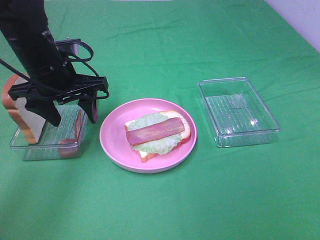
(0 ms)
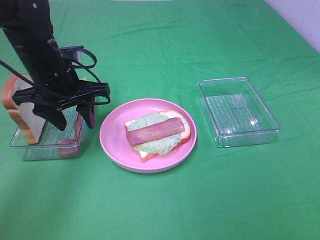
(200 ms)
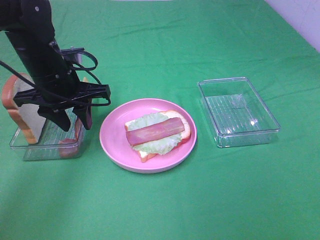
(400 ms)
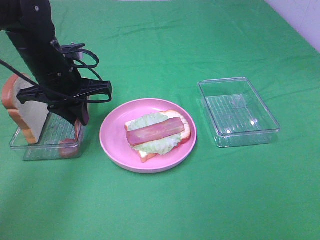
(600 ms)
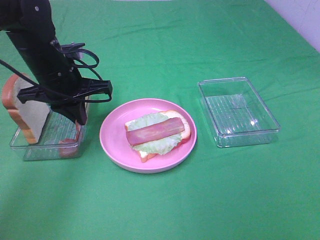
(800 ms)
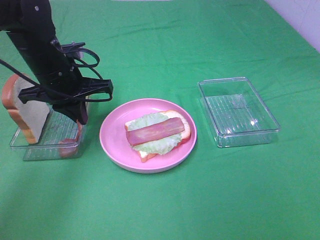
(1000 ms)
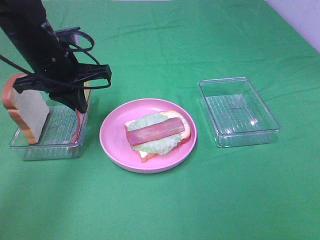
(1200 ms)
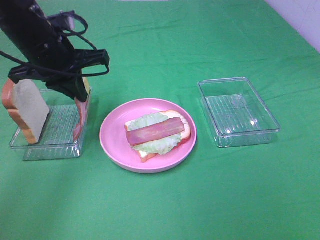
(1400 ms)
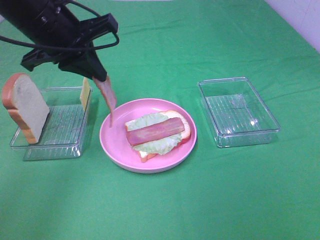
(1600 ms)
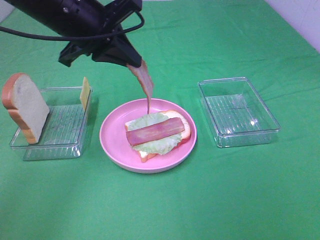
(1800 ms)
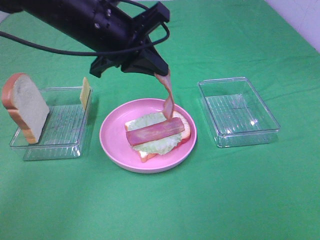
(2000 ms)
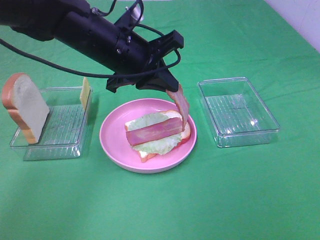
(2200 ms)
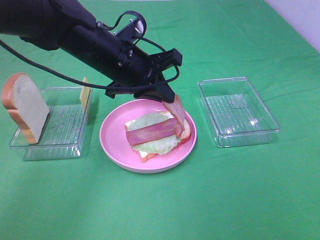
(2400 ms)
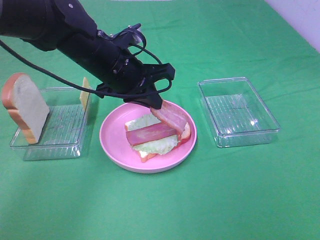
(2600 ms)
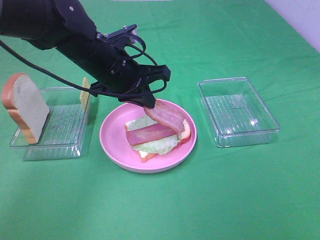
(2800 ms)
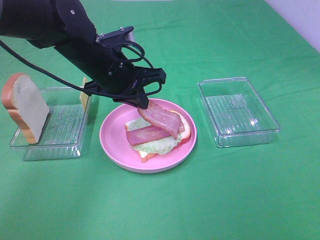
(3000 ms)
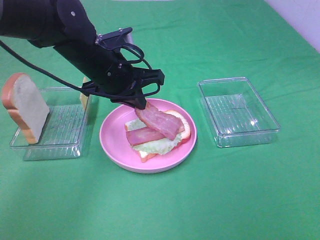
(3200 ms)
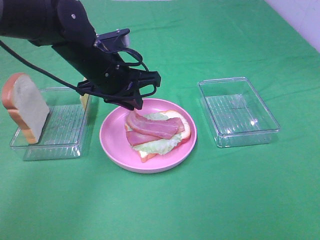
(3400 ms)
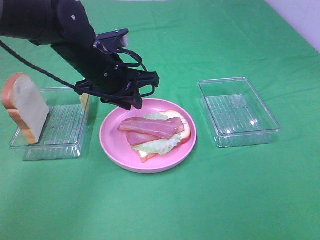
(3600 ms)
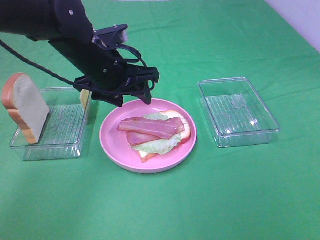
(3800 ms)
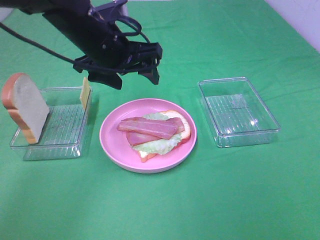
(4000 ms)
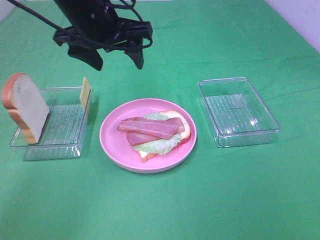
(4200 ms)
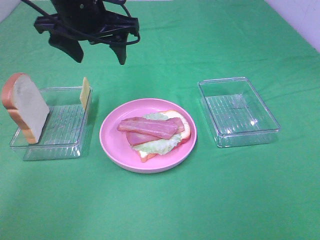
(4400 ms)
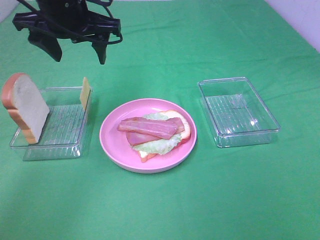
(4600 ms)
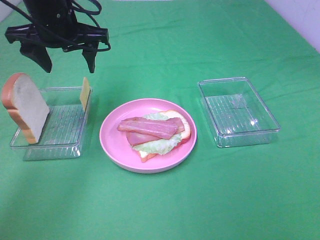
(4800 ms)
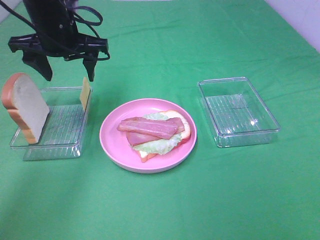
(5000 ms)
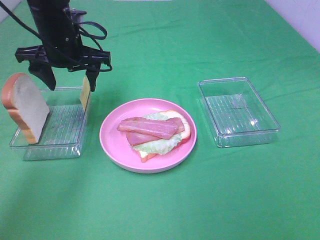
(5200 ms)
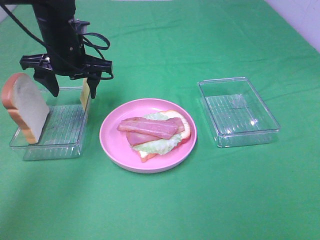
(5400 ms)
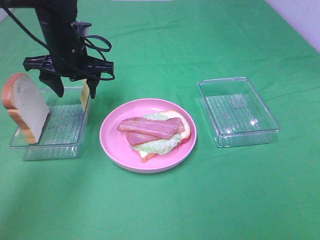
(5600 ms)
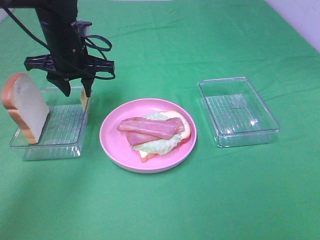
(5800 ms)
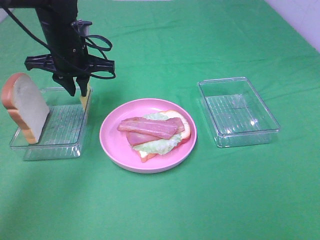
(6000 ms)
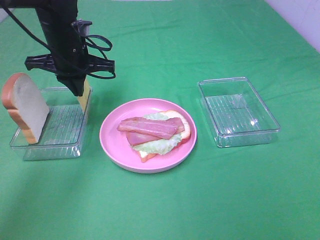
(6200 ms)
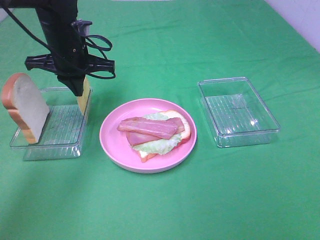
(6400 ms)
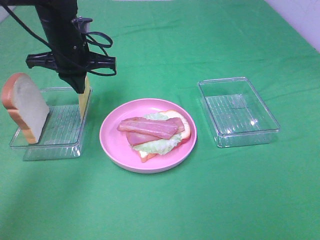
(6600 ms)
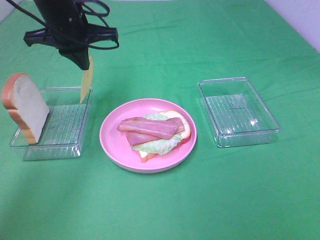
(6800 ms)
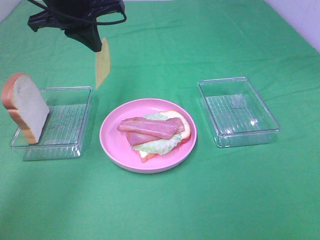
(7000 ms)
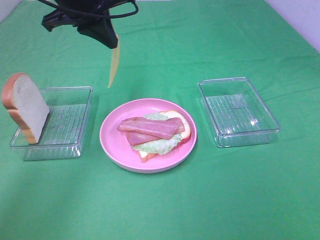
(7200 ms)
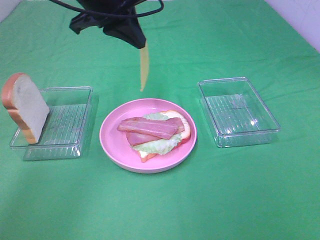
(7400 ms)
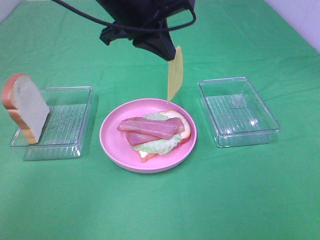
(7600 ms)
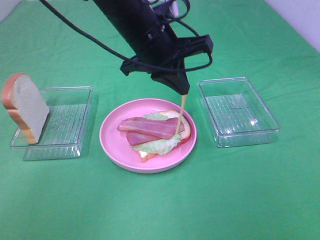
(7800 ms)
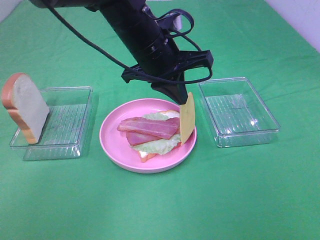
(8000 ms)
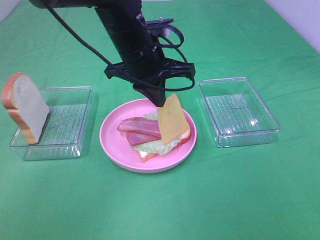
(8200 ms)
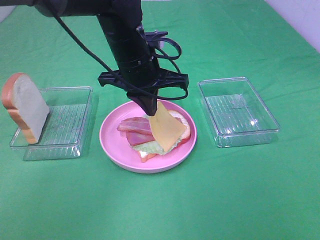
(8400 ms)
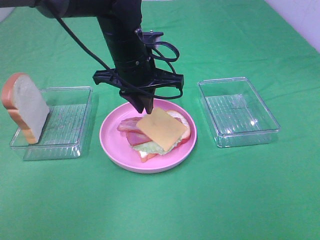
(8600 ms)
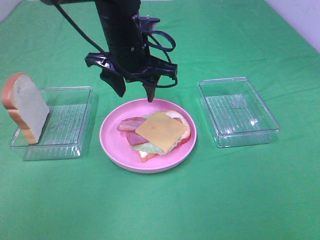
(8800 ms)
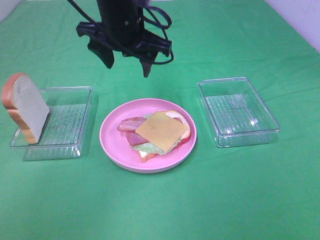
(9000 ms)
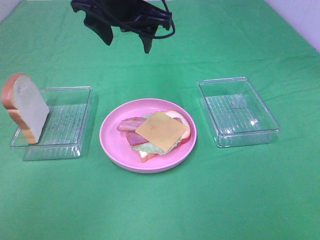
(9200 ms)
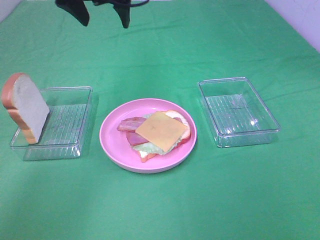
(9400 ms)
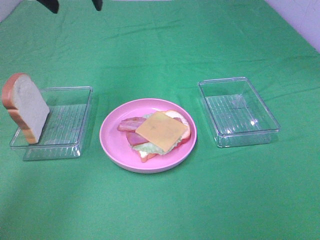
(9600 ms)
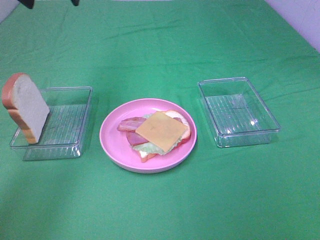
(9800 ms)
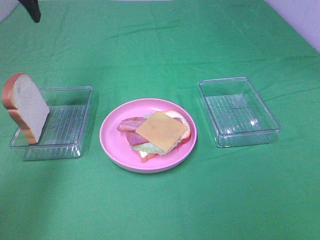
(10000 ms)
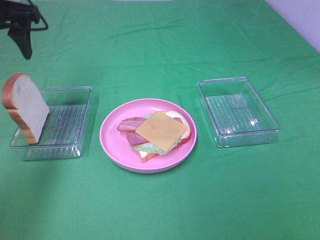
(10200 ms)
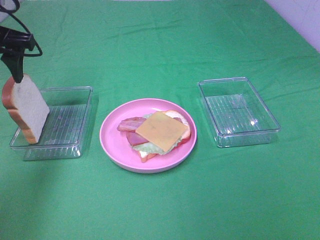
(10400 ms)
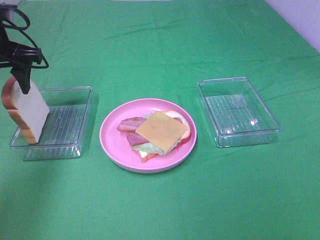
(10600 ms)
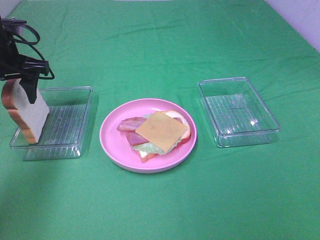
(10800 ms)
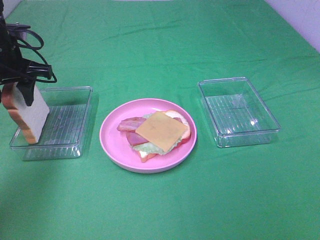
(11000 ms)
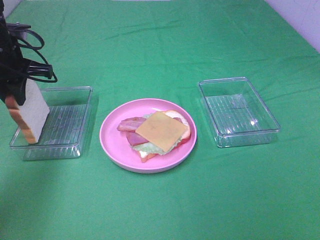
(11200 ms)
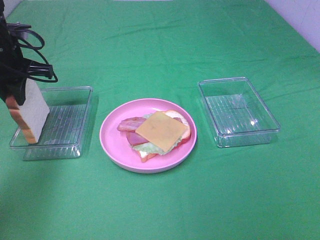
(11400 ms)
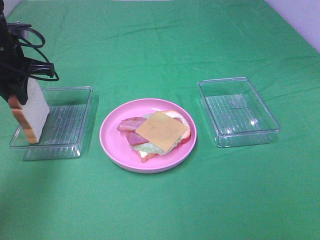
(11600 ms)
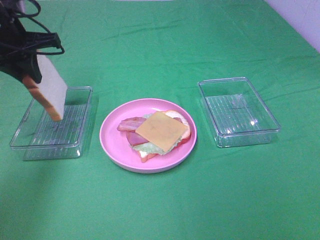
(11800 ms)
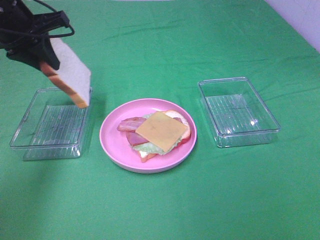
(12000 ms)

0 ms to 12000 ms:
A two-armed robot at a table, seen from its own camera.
Task of the whole recording: Make sandwiches.
Step, 1000 ms to 3400 ms: Left hand:place bacon on bacon.
Step, 3600 ms to 6400 ms: Left hand:grab the cheese slice.
Step, 6600 ms to 8800 ms: Left hand:place the cheese slice on top of the bacon.
Step, 9000 ms to 11400 ms: Left hand:grab the bread slice.
0 ms to 1600 ms: The left gripper heads upward, covering about 10 cm, and closes.
1600 ms to 3000 ms: The left gripper heads downward and to the right, covering approximately 10 cm.
3000 ms to 4400 ms: The left gripper shifts approximately 10 cm upward, and opens.
4400 ms to 6000 ms: The left gripper travels downward and forward by about 10 cm, and closes.
6000 ms to 7600 ms: The left gripper moves to the right, upward and backward, roughly 15 cm.
7600 ms to 9000 ms: The left gripper reaches roughly 10 cm downward, then returns, and opens up.
9000 ms to 10400 ms: The left gripper shifts roughly 20 cm to the left.
10400 ms to 12000 ms: The left gripper closes.

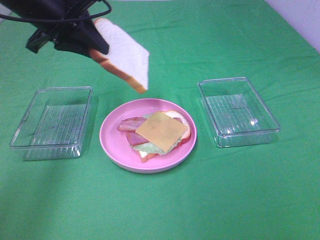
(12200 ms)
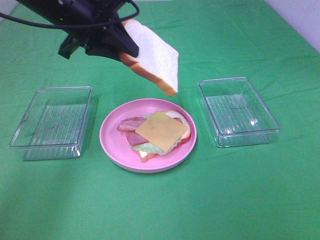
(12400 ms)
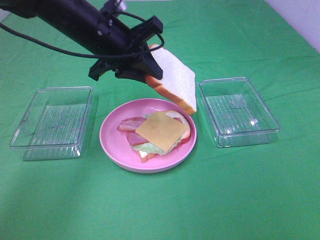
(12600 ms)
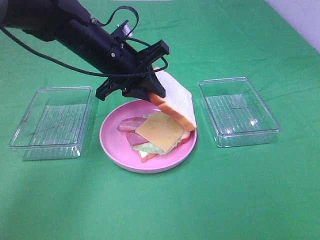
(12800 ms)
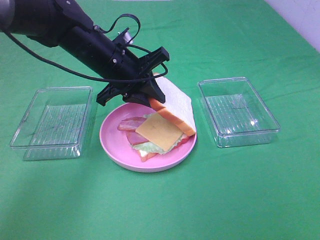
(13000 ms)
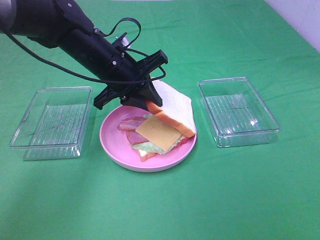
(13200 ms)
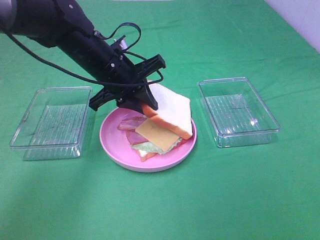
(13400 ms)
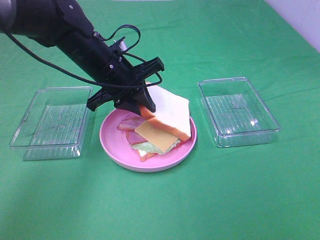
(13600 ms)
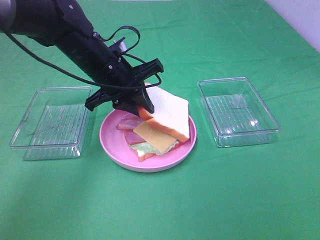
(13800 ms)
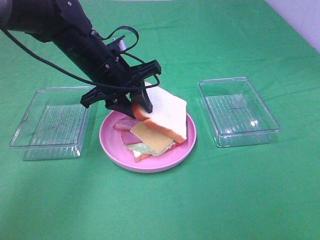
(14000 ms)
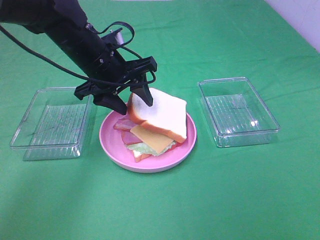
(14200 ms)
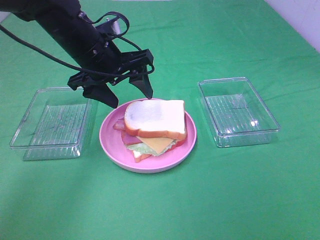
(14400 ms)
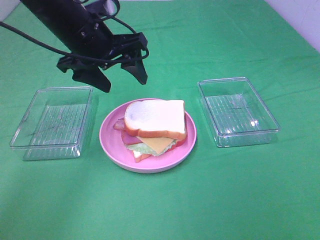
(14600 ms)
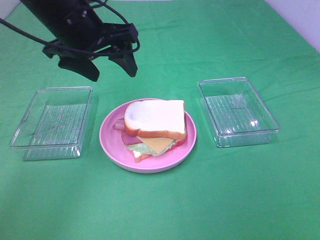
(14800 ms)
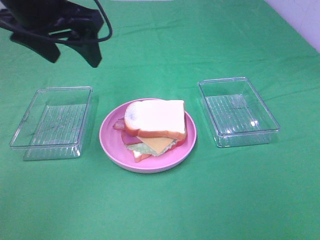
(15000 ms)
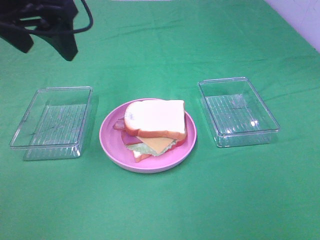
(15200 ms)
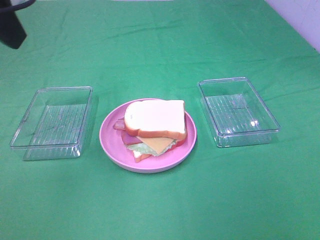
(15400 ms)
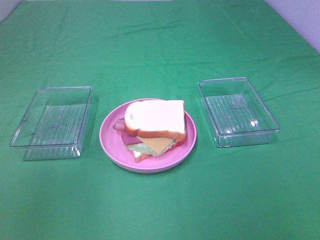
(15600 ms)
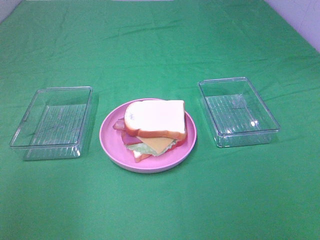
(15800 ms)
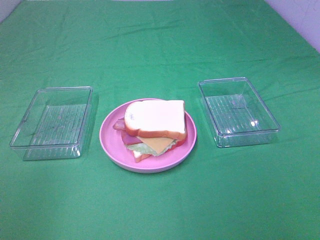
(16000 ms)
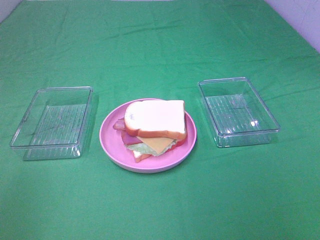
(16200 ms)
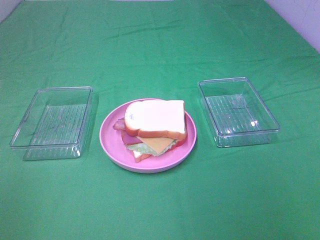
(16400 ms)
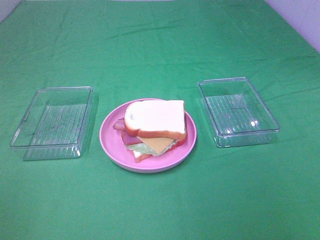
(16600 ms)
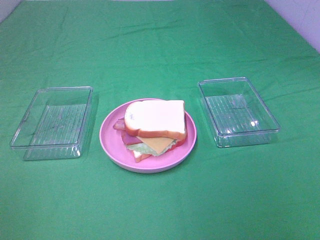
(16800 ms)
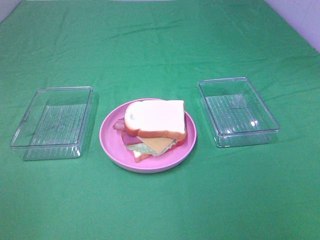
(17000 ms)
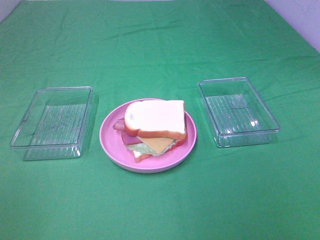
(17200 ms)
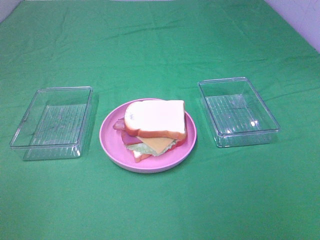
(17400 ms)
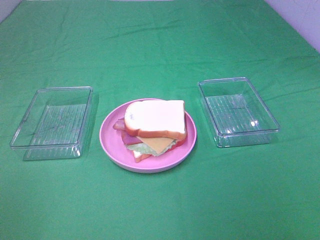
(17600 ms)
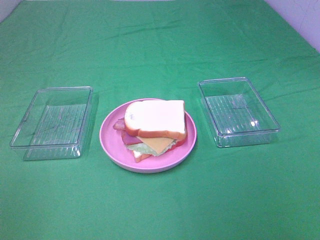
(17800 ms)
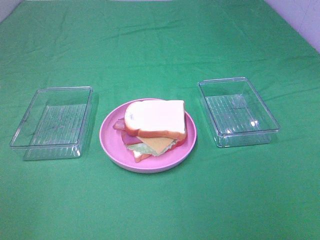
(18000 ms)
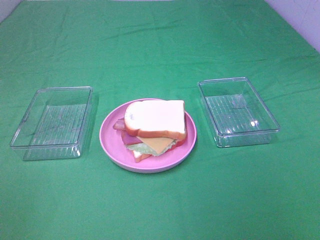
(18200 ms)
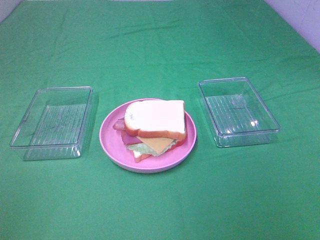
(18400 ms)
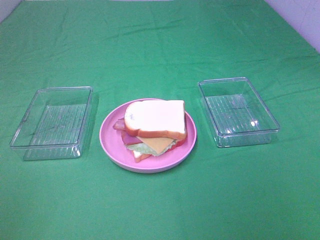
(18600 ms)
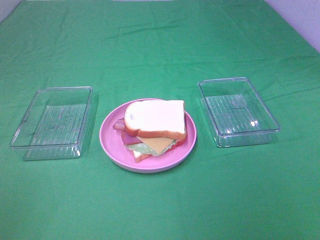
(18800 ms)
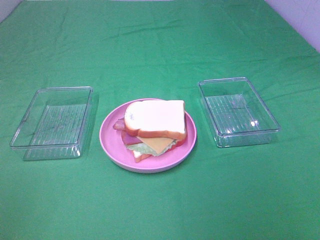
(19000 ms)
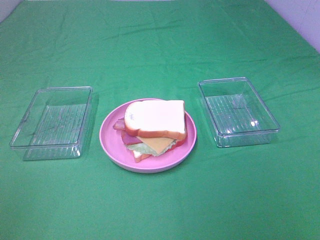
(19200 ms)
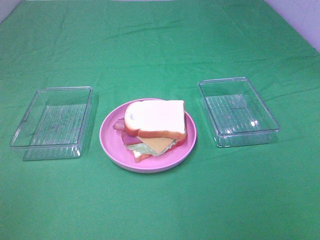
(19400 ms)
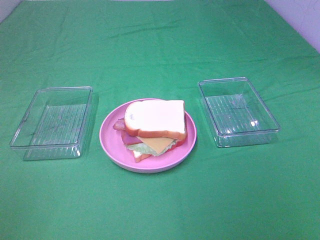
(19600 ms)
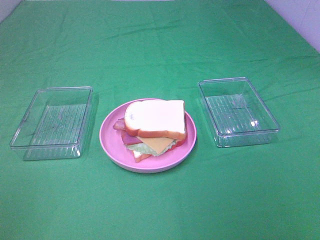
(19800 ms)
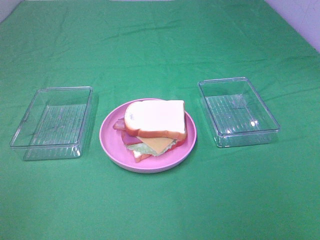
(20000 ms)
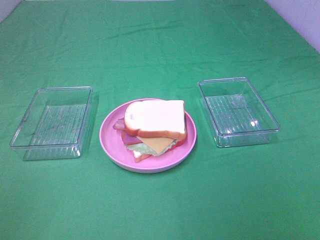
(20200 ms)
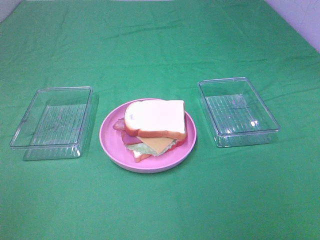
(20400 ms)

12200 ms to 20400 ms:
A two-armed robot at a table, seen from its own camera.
Task of the whole recording: Make sandwiches.
Step, 12200 ms to 14200 ms: Left hand:place the bread slice on the cheese slice.
12200 ms to 13800 ms: The left gripper travels downward and to the right by approximately 15 cm.
13800 ms to 15400 ms: The left gripper travels upward, backward and to the left by roughly 30 cm, and opens up.
15400 ms to 17200 ms: The left gripper moves backward, downward and to the left, roughly 25 cm.
18800 ms to 20400 ms: The two grippers keep their place.
